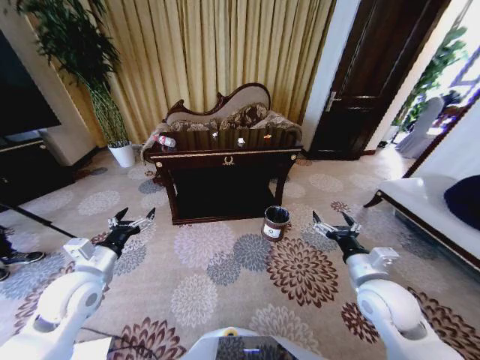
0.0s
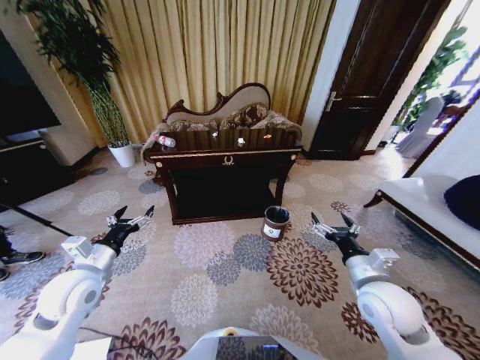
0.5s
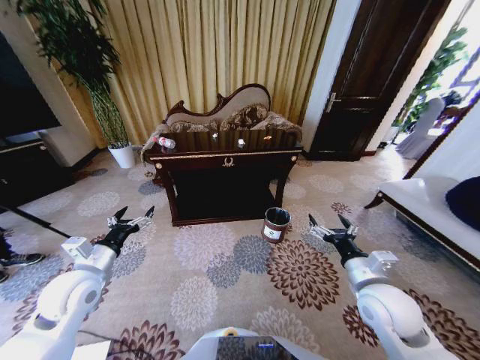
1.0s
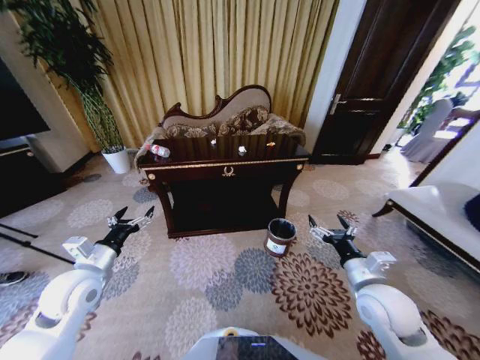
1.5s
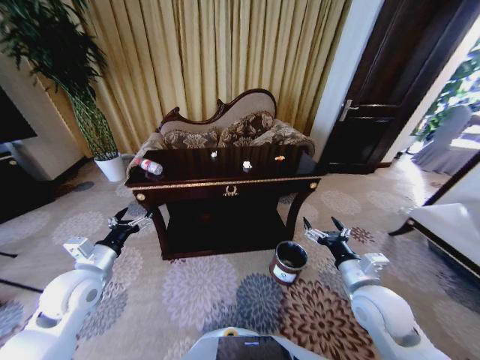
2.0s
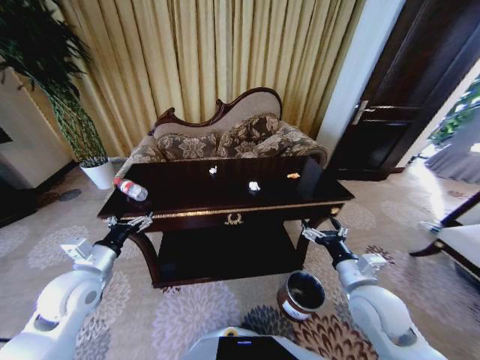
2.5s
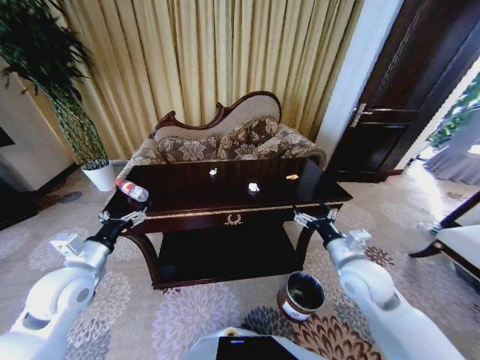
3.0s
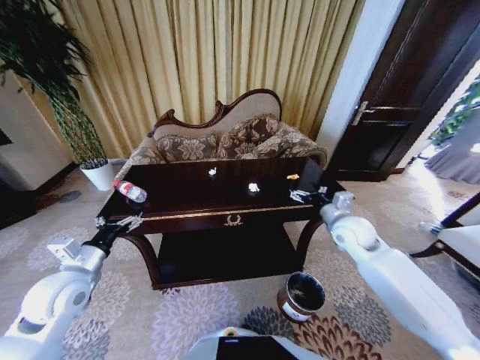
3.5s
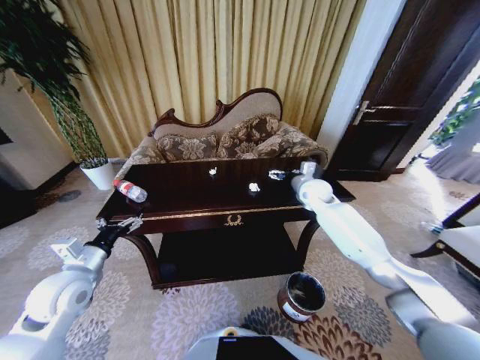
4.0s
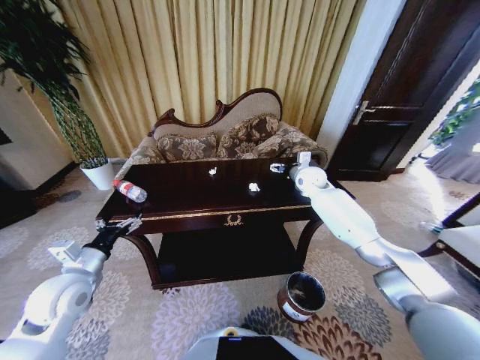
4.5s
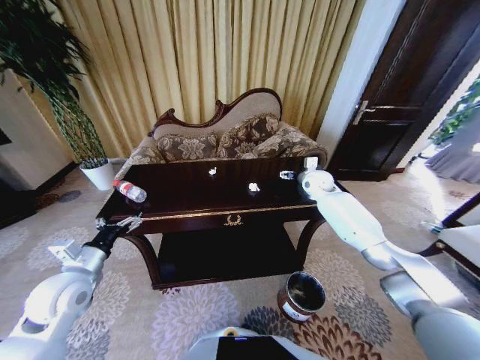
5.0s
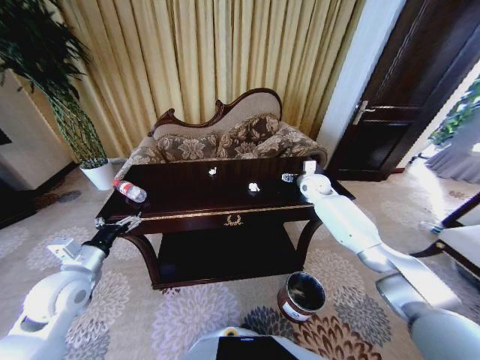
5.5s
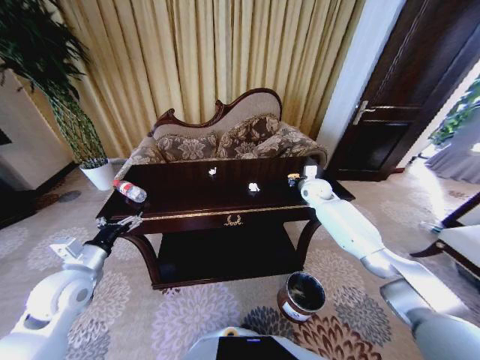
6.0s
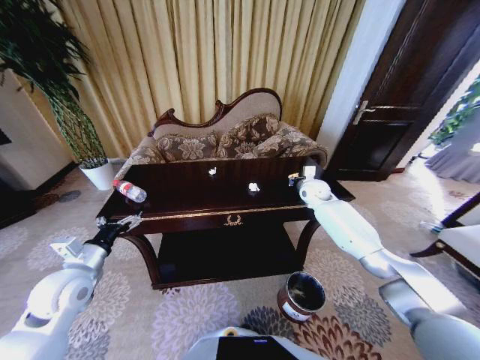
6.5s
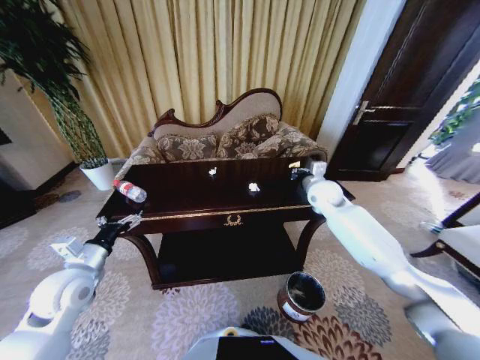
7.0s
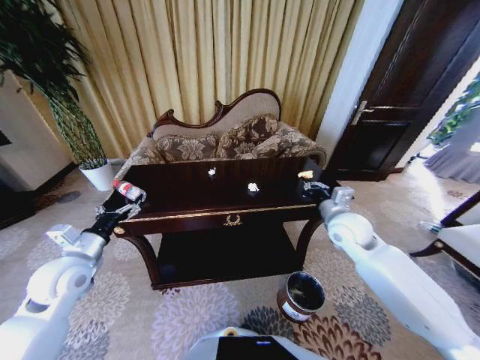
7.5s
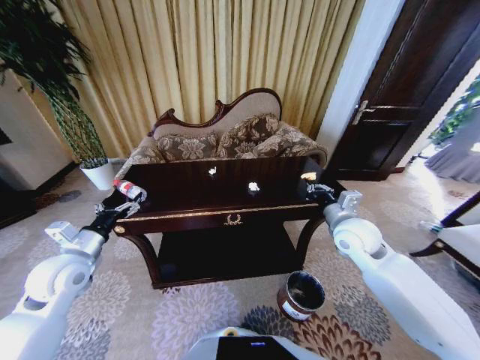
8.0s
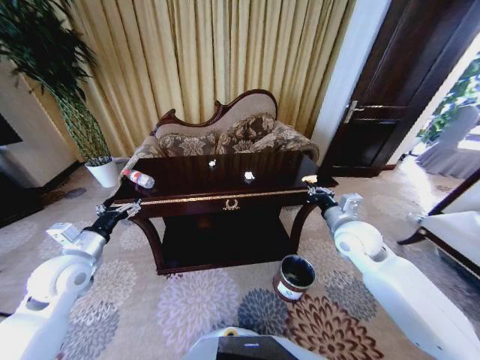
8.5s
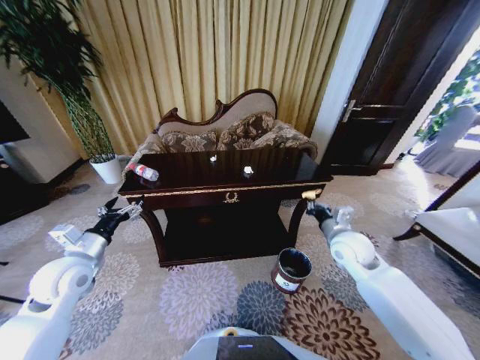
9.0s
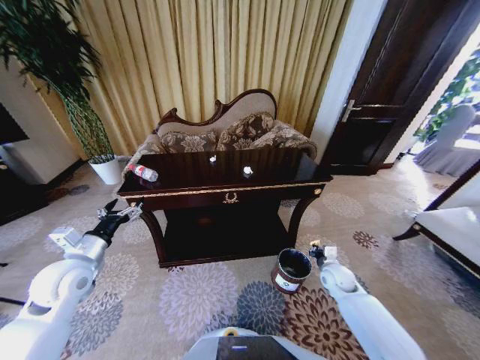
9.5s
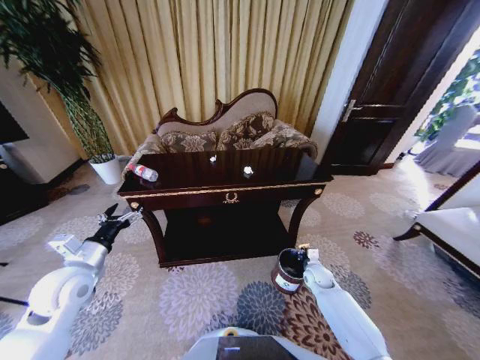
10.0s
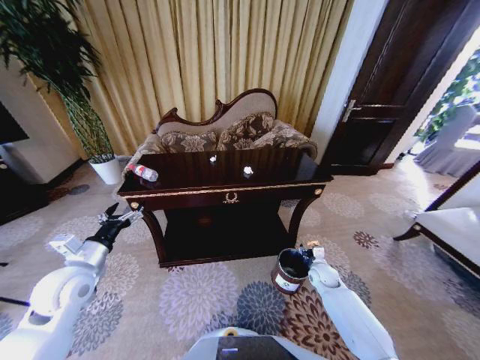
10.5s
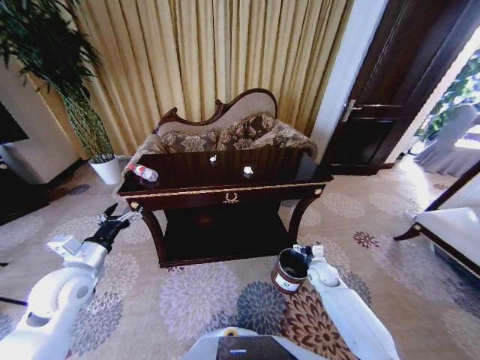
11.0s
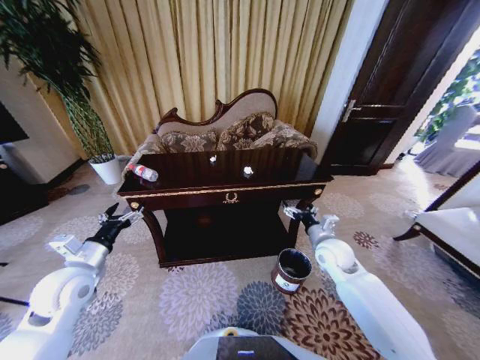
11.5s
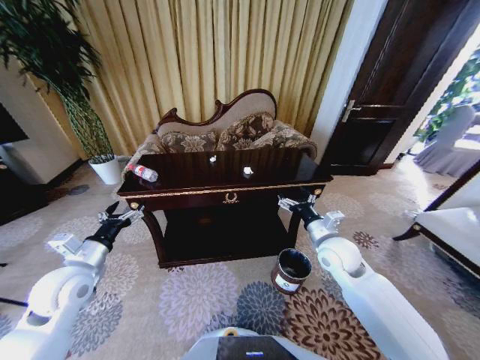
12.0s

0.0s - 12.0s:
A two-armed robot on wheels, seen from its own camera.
Task of the whole recording: Move to the front of the table and place the trash on the table into the trash bin.
2.0s - 4.0s: The right gripper goes roughly 30 cm forward.
4.0s - 6.0s: The right gripper changes place by approximately 5 cm, and closes its fingers.
6.0s - 8.0s: The right gripper is displaced backward by some 20 cm.
8.0s - 10.0s: The right gripper shifts roughly 30 cm downward.
10.0s - 12.0s: The right gripper goes about 25 cm upward, and opens.

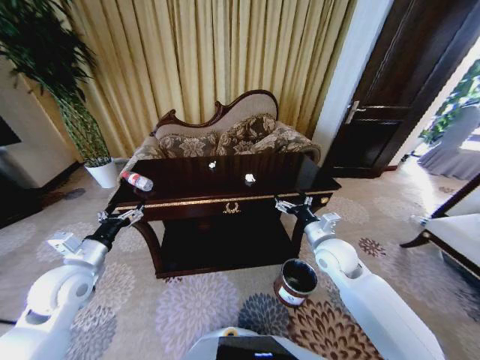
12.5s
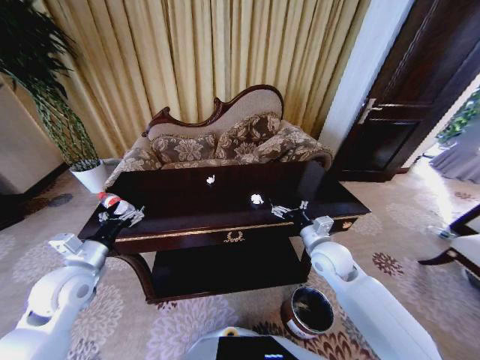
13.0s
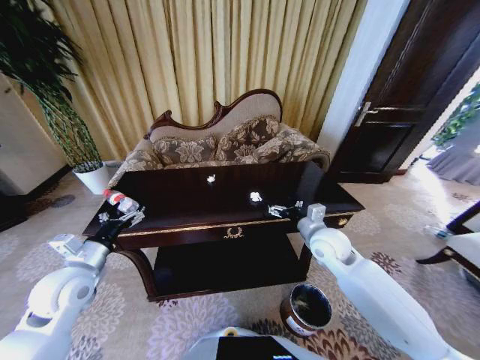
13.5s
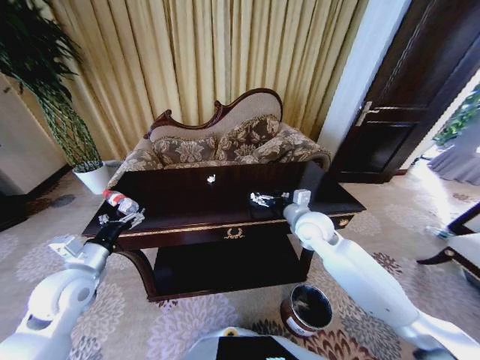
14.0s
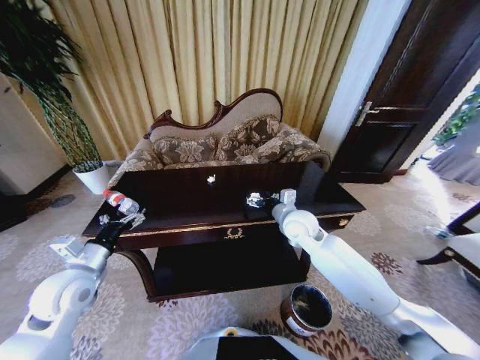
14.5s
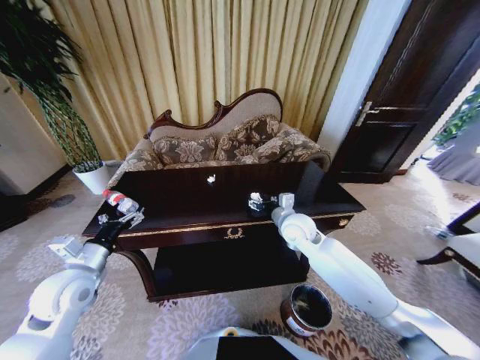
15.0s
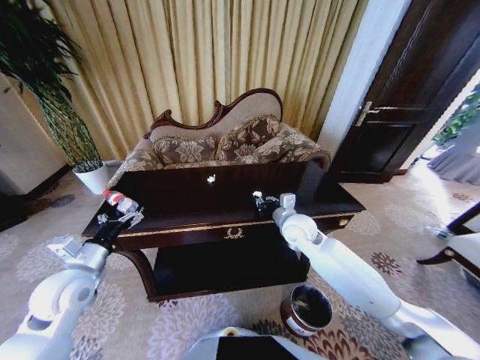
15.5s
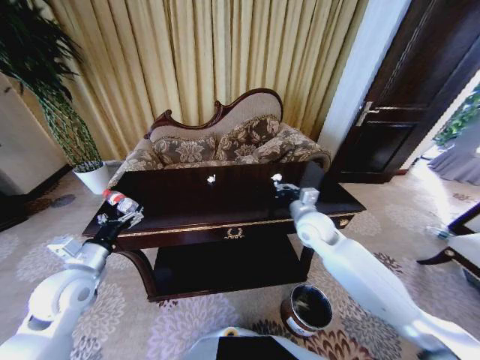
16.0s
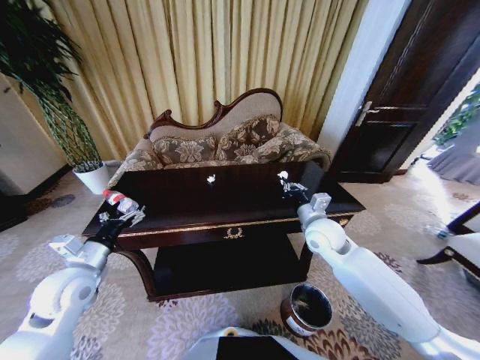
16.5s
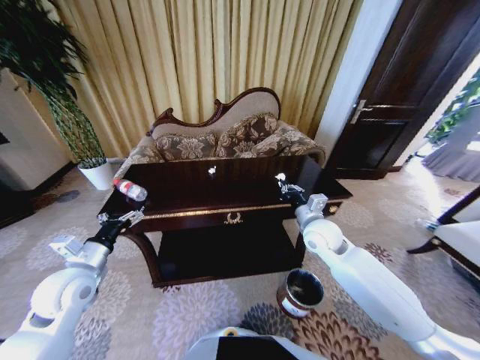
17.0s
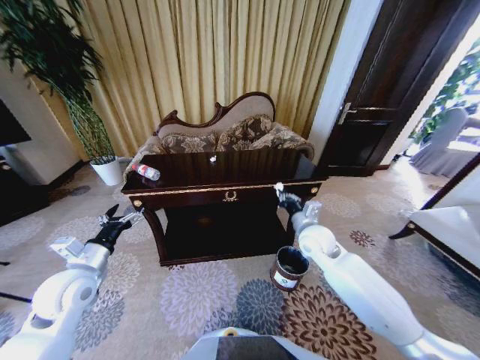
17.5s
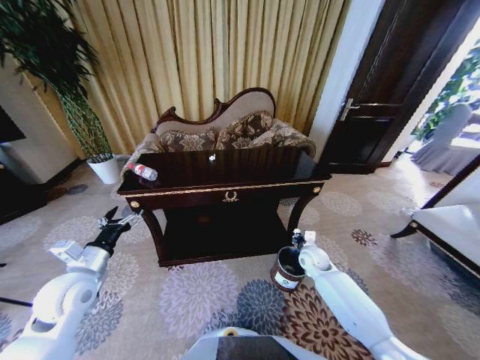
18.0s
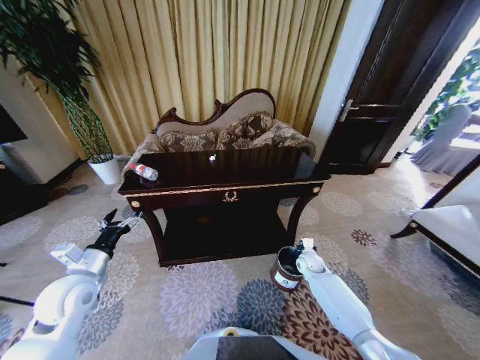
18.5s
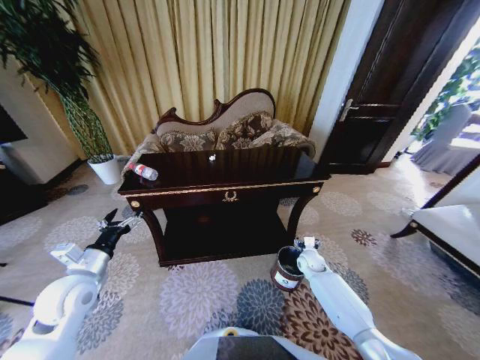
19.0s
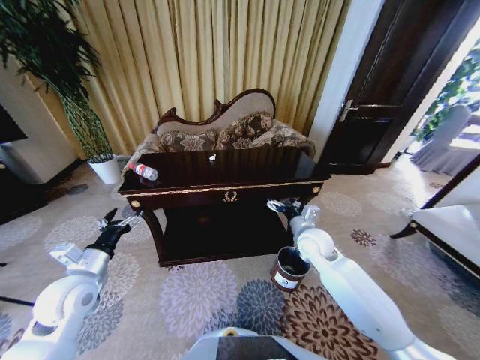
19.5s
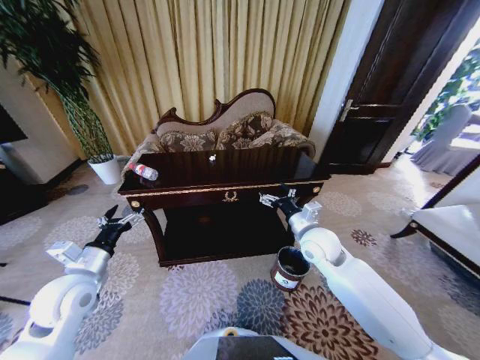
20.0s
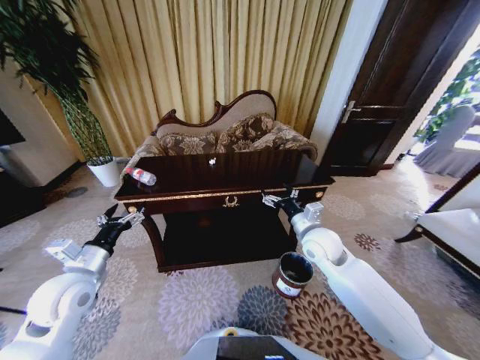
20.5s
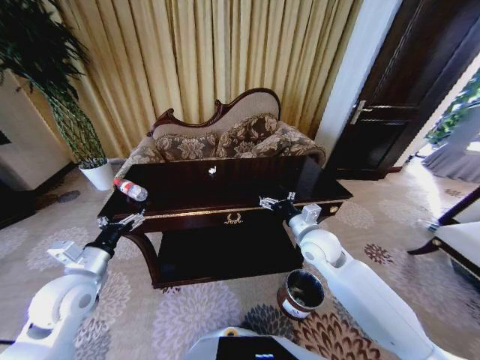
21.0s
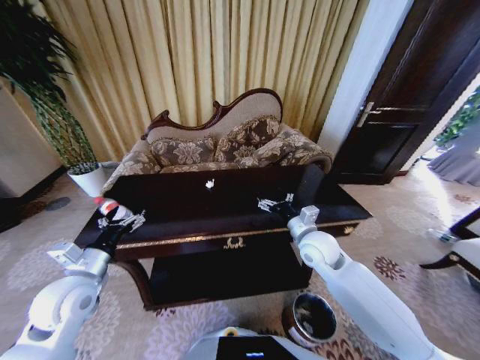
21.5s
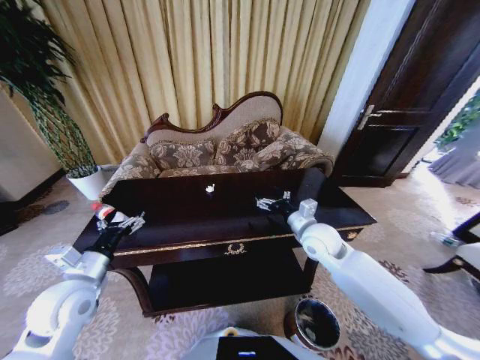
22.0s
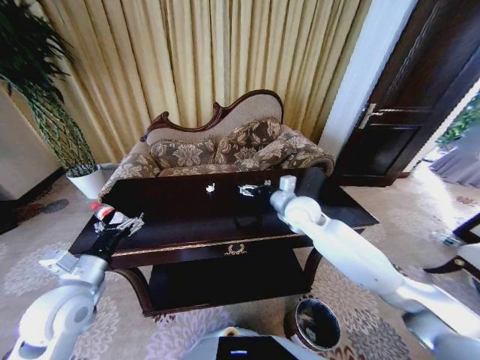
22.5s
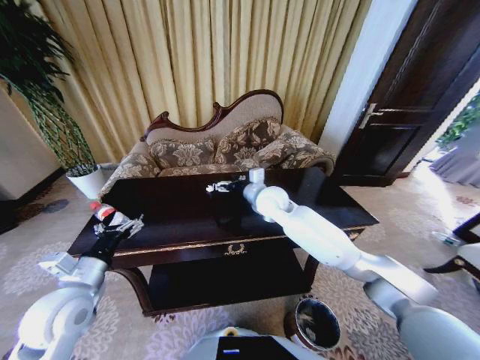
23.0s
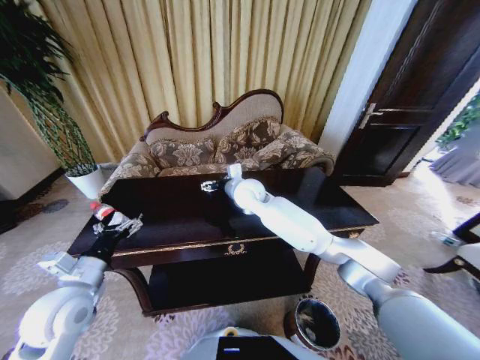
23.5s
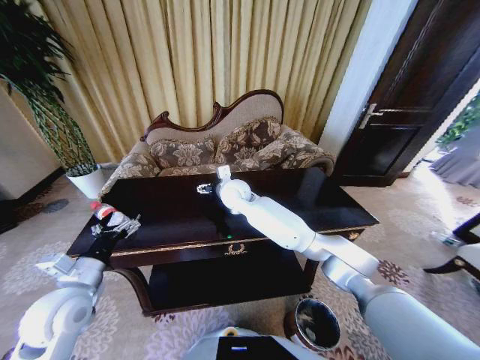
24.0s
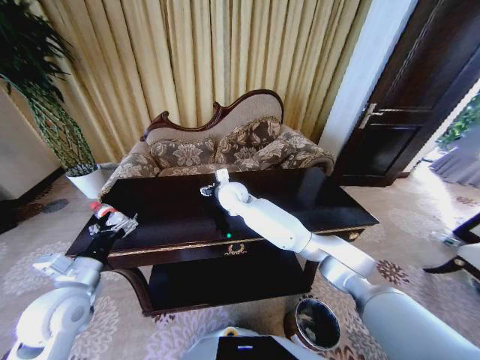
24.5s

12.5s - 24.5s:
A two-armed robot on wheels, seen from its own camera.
Task of the whole recording: Move to the front of the table and place the trash on the table into the trash bin.
12.5s - 14.5s: The right gripper goes some 10 cm to the left and forward.
14.5s - 16.5s: The right gripper travels to the right by some 5 cm, and closes.
16.5s - 18.5s: The right gripper goes about 25 cm downward.
18.5s - 20.5s: The right gripper moves upward, approximately 25 cm, and opens.
20.5s - 22.5s: The right gripper heads forward and upward, covering about 10 cm.
22.5s - 24.5s: The right gripper shifts roughly 20 cm to the left.

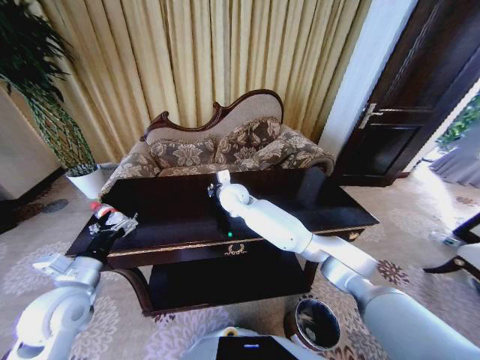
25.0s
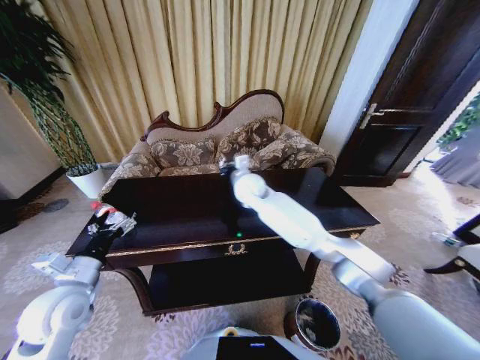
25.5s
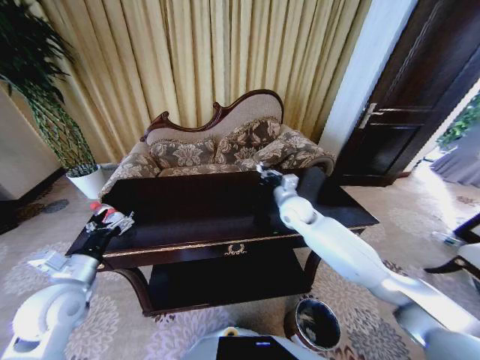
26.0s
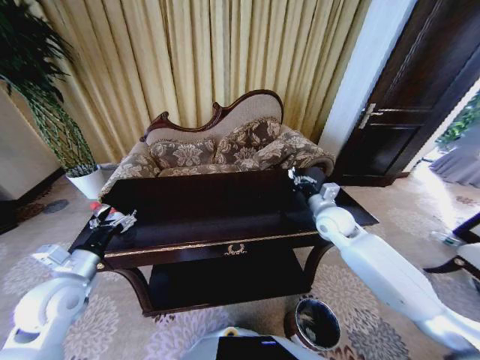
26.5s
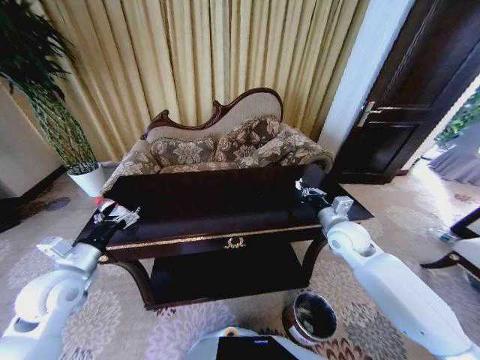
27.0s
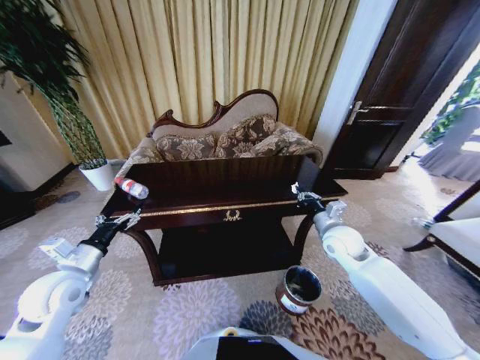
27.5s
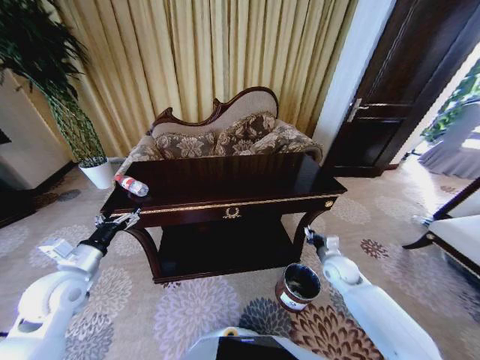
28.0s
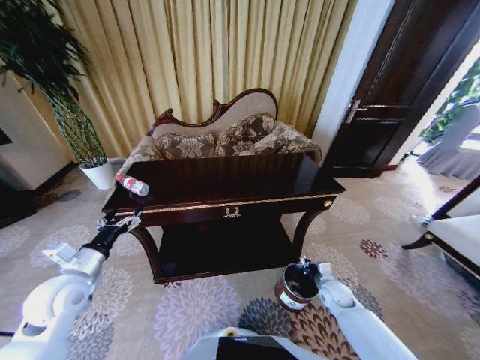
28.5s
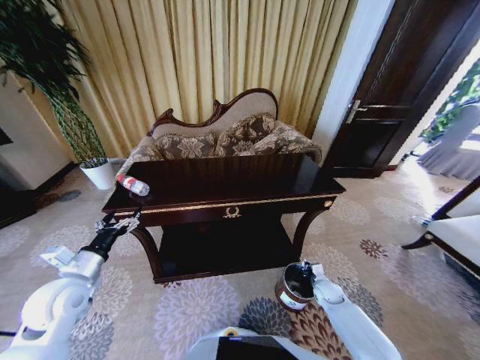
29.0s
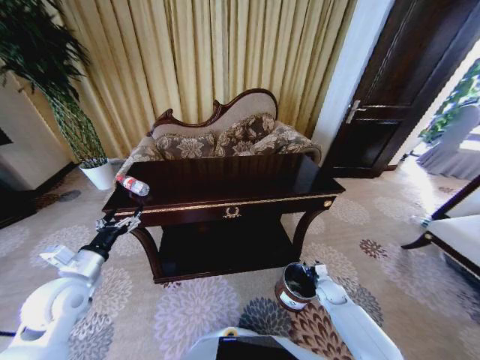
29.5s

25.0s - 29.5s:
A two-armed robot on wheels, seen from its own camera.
Task of the whole recording: Move to the front of the table and place the trash on the table into the trash bin.
25.0s - 27.0s: The right gripper heads to the right and backward, covering roughly 35 cm.
27.0s - 29.5s: The right gripper heads downward, covering about 30 cm, and opens up.
